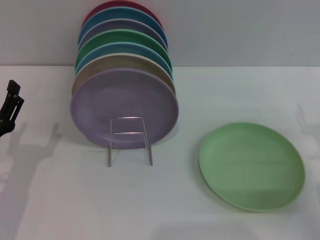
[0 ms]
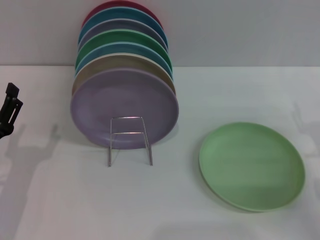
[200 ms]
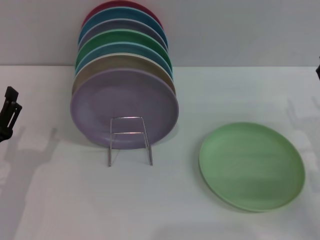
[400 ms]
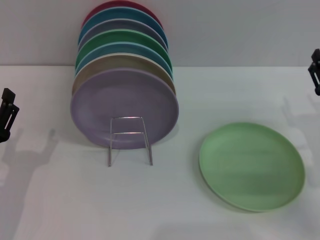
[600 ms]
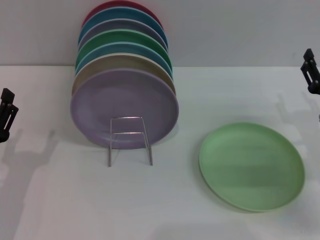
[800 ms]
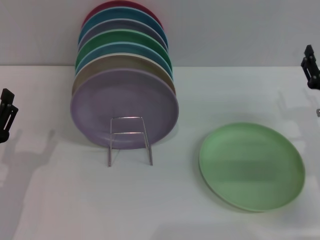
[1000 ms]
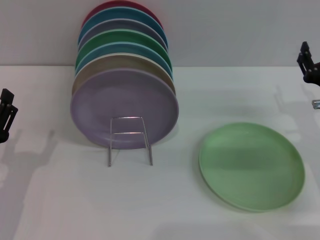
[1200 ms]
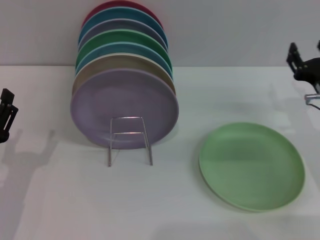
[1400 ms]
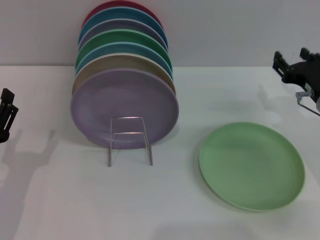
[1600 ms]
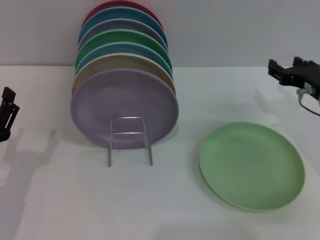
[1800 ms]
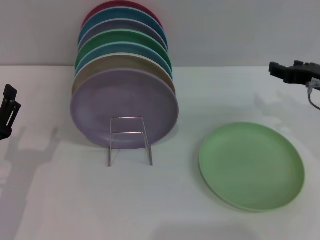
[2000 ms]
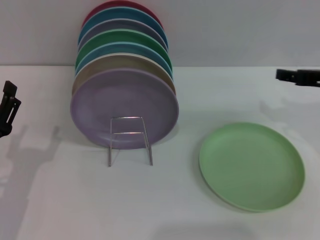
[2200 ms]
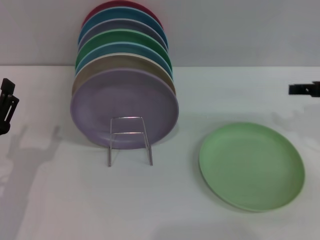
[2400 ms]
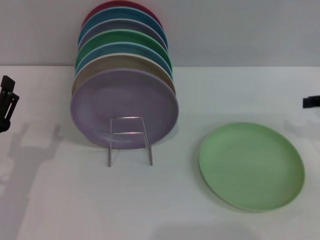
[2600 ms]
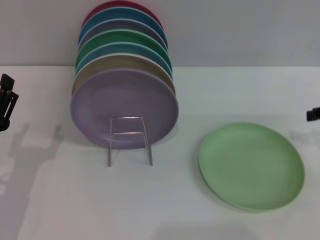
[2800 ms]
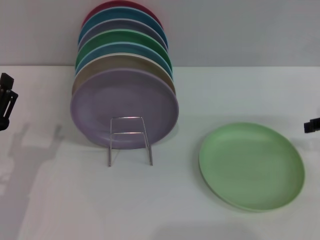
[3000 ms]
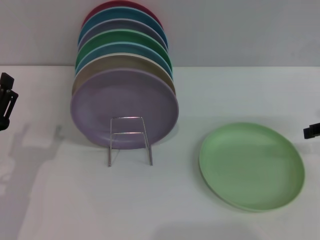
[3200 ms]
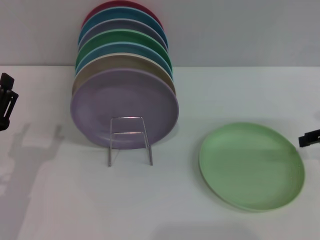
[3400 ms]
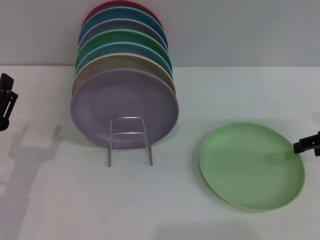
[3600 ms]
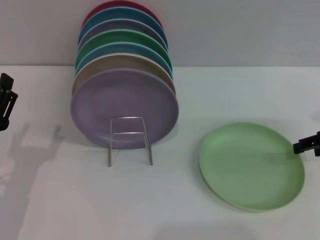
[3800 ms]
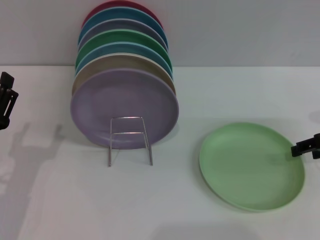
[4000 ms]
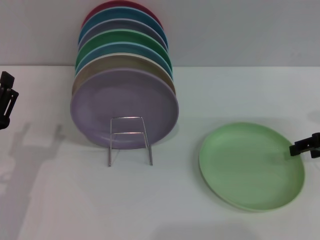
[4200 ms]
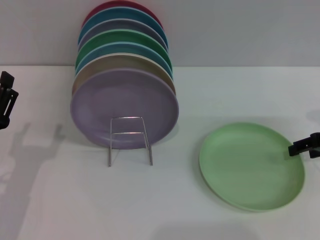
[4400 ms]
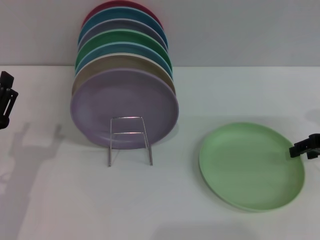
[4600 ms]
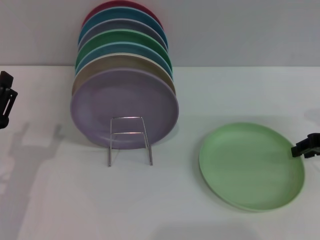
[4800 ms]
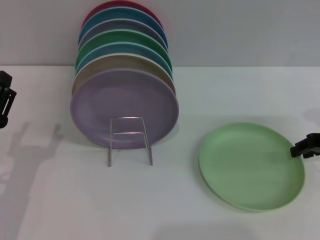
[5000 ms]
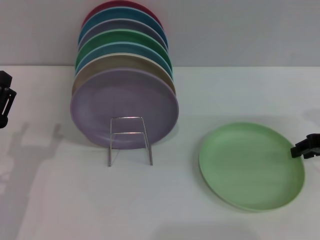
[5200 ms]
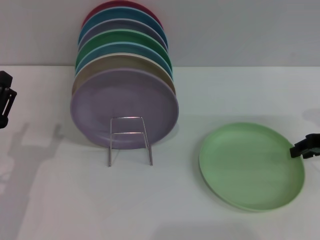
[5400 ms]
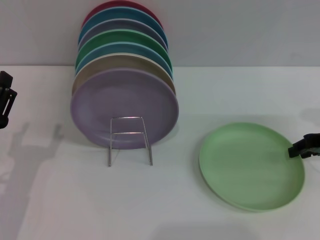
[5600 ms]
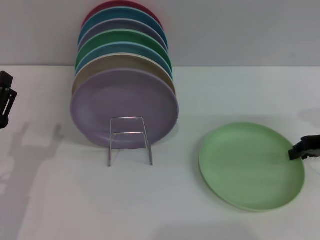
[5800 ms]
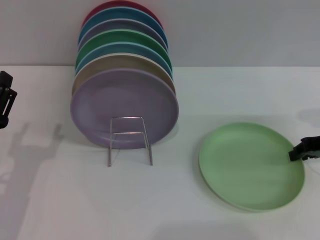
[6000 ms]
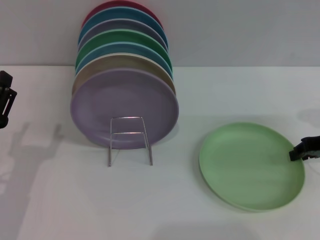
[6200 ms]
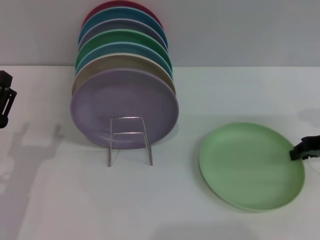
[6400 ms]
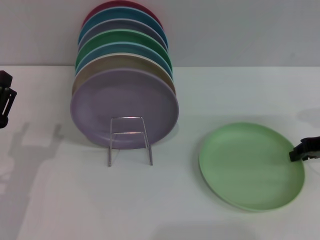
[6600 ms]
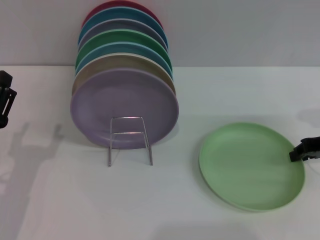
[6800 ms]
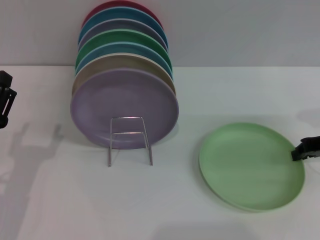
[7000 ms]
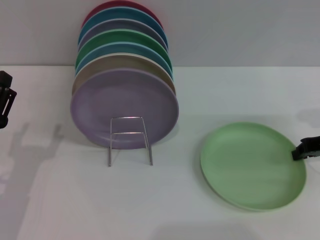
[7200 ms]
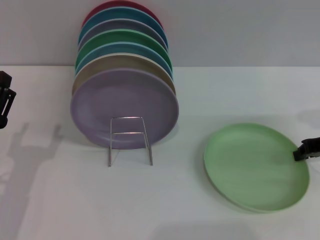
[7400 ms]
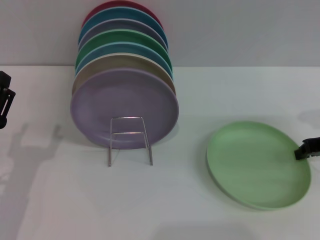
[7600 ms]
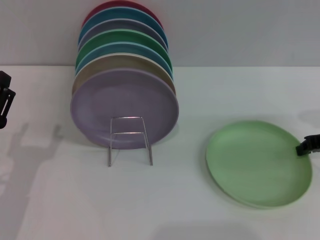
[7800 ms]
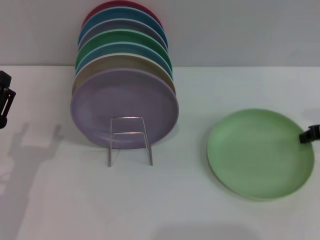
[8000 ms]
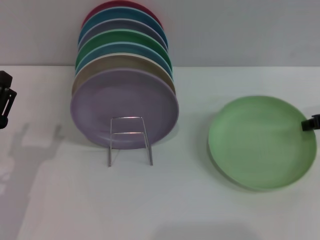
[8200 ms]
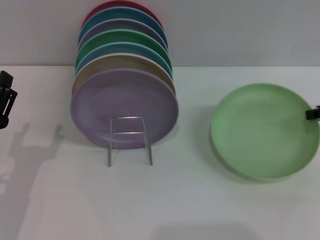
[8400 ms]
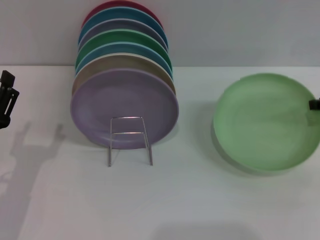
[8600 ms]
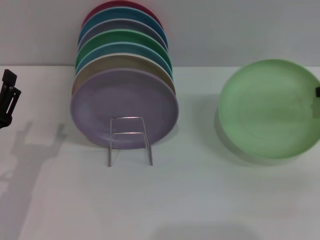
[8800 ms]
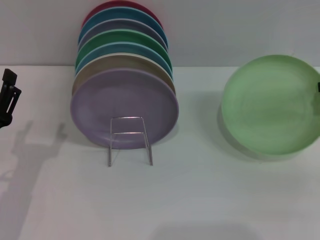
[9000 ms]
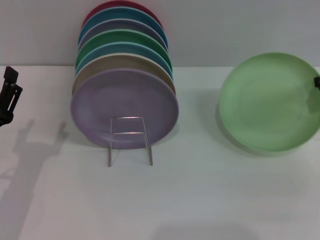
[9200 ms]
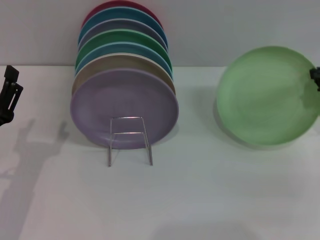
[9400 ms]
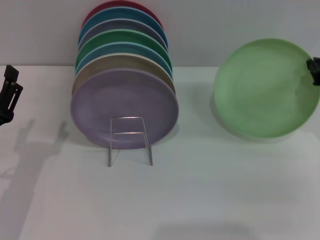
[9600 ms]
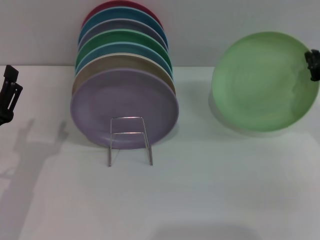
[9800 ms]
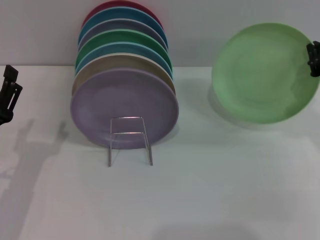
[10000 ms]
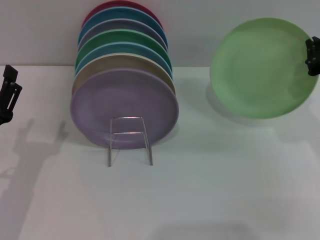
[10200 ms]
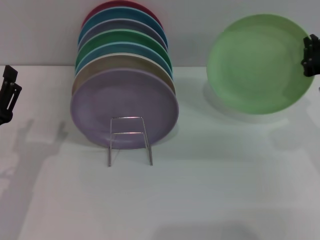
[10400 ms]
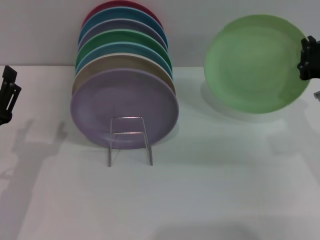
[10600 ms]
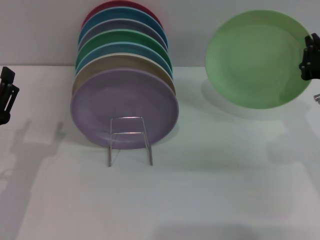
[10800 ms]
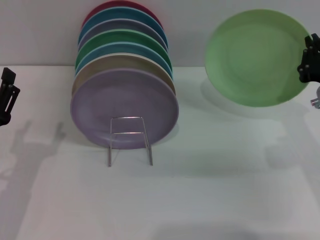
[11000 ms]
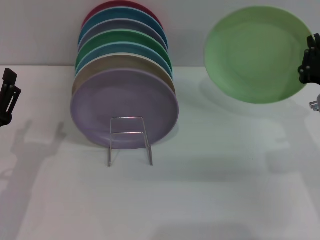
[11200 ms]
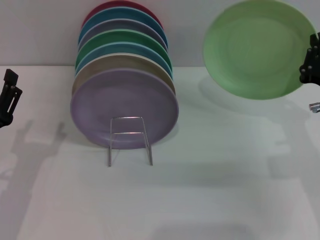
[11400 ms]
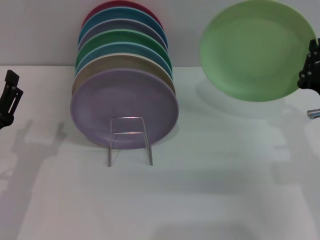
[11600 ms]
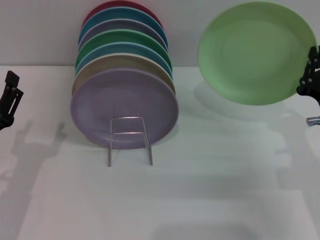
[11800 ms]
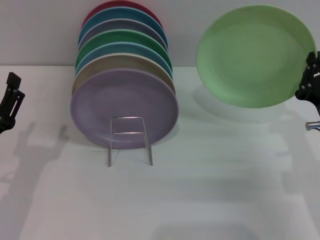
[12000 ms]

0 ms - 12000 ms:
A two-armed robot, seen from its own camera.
Task of the whole recording: Grip the plate with one hand, pass it to the other, then set it on the shelf.
Step, 0 ms - 10800 ms: Pick up the plate with the right gripper.
0 ms - 1600 ms: The right gripper moves forward, some 10 cm.
1600 ms - 3000 ms: The right gripper shifts some 10 cm to the right and upward.
3000 ms - 4400 ms: The grippers make only small movements.
6000 ms - 7600 ms: The two grippers keep their place.
7600 ms - 9000 ms: The right gripper goes approximately 5 cm upward.
9000 ms - 10400 ms: The right gripper travels to the left by some 5 cm.
10400 ms - 12000 ms: The right gripper is displaced downward and backward by some 10 cm.

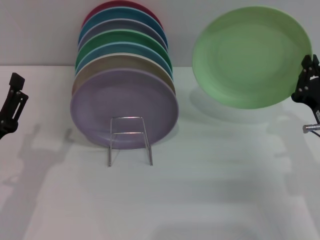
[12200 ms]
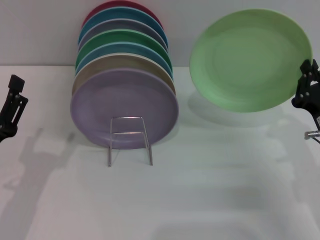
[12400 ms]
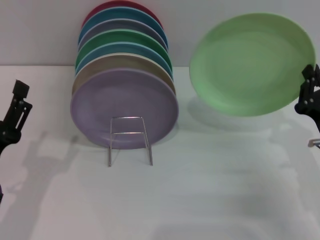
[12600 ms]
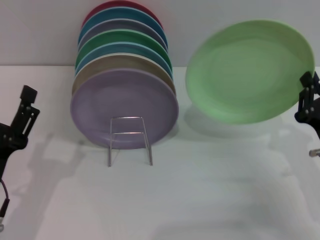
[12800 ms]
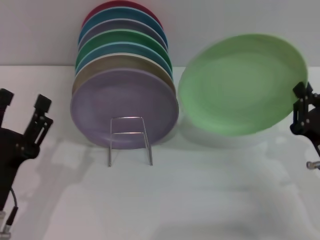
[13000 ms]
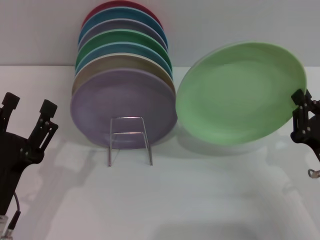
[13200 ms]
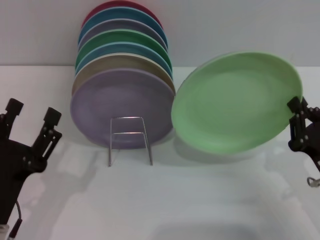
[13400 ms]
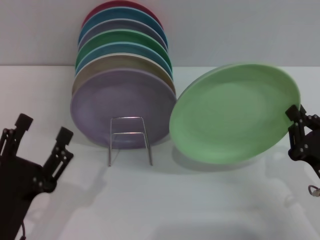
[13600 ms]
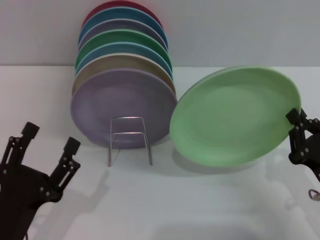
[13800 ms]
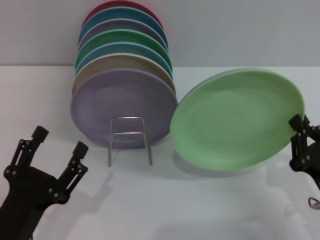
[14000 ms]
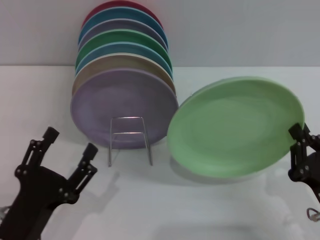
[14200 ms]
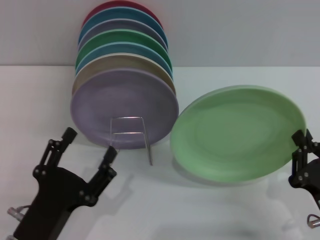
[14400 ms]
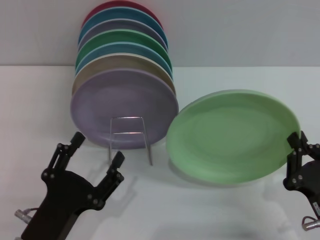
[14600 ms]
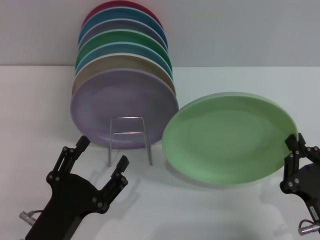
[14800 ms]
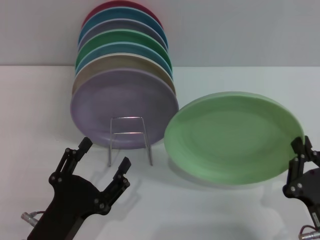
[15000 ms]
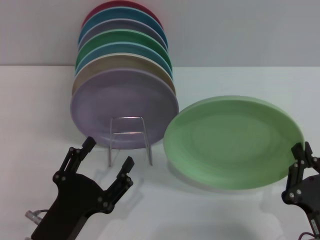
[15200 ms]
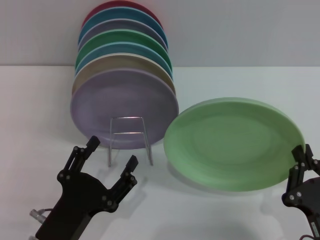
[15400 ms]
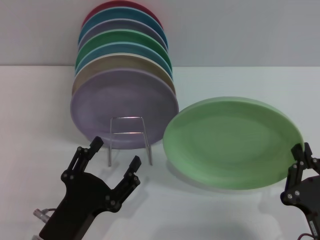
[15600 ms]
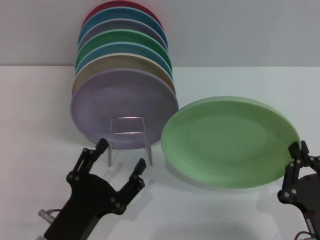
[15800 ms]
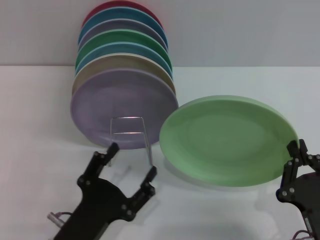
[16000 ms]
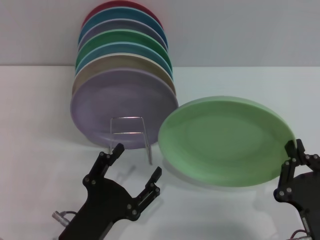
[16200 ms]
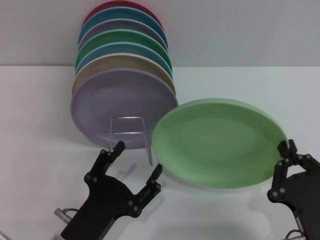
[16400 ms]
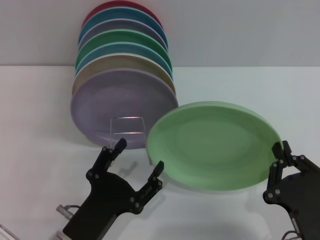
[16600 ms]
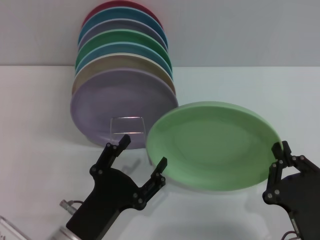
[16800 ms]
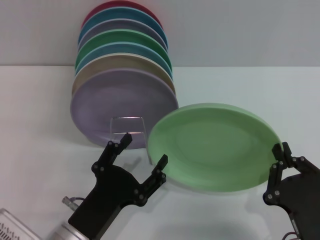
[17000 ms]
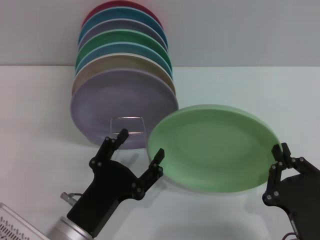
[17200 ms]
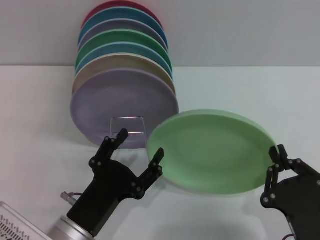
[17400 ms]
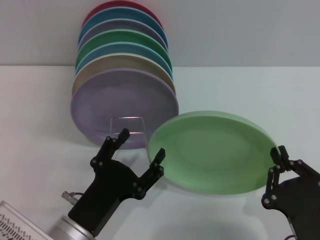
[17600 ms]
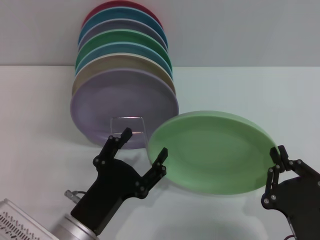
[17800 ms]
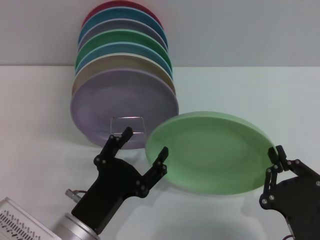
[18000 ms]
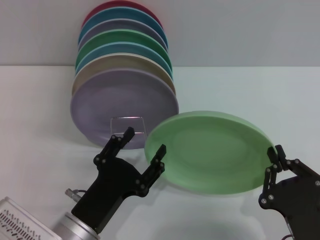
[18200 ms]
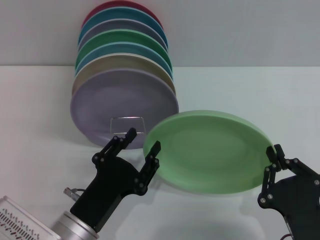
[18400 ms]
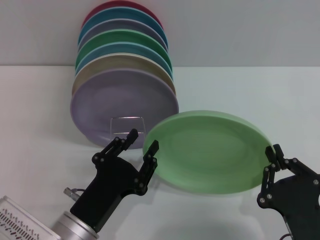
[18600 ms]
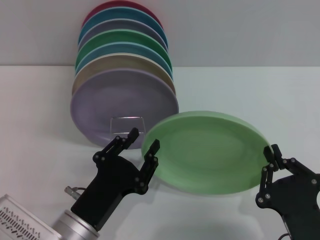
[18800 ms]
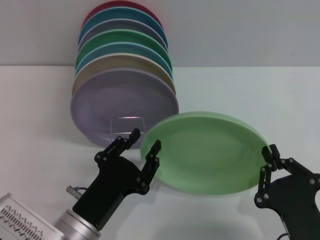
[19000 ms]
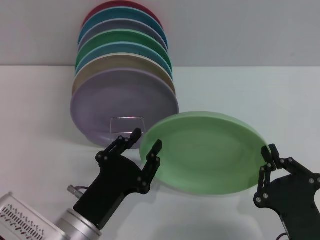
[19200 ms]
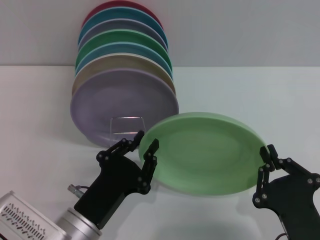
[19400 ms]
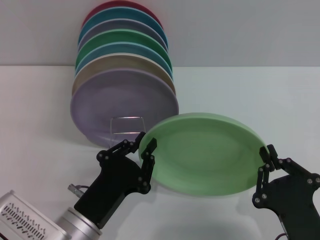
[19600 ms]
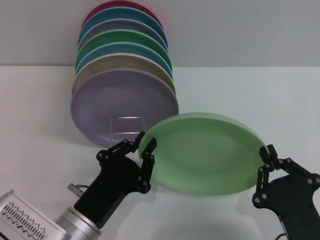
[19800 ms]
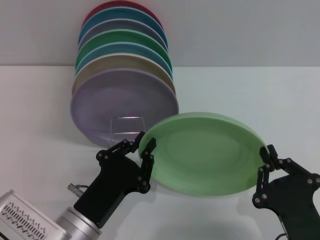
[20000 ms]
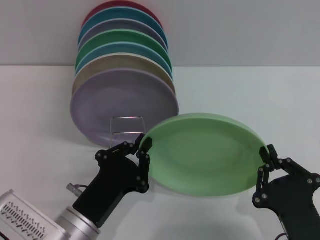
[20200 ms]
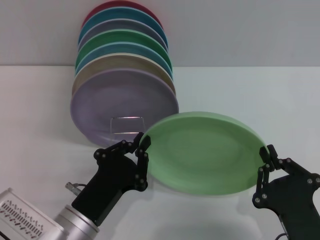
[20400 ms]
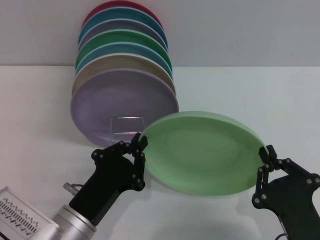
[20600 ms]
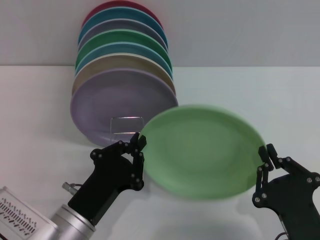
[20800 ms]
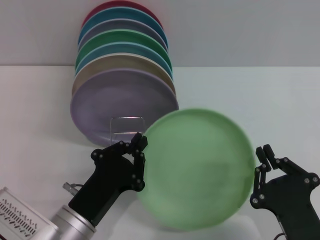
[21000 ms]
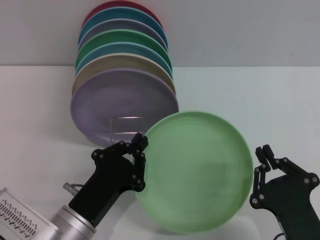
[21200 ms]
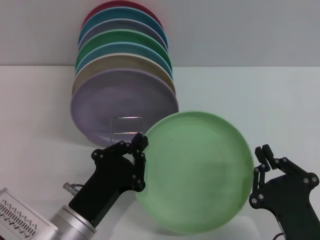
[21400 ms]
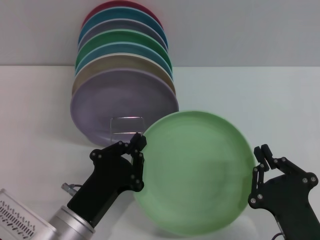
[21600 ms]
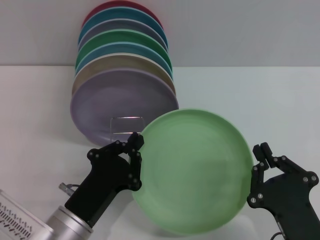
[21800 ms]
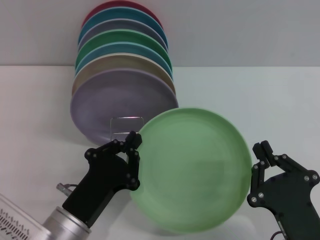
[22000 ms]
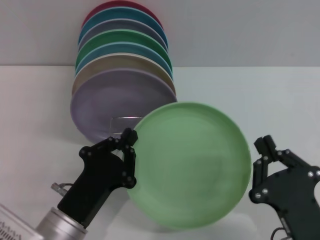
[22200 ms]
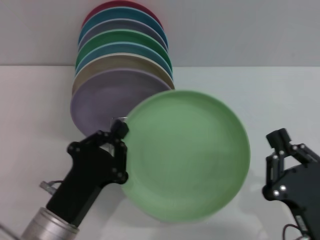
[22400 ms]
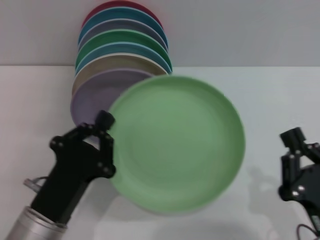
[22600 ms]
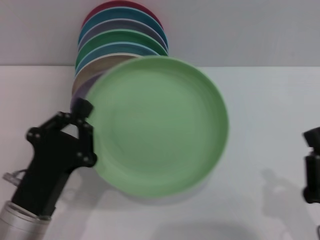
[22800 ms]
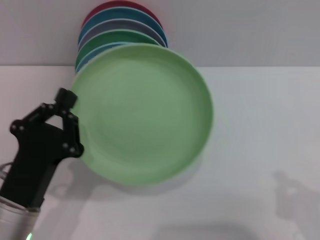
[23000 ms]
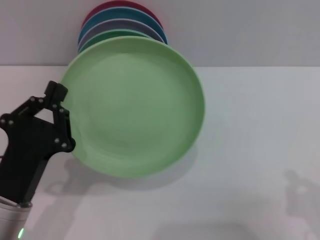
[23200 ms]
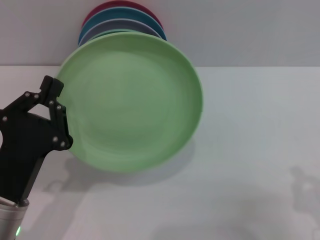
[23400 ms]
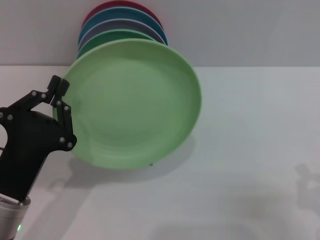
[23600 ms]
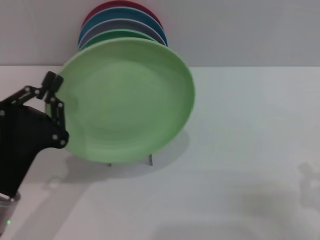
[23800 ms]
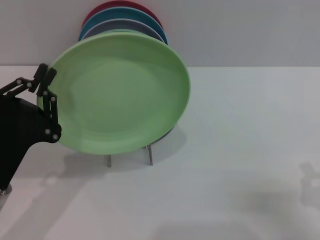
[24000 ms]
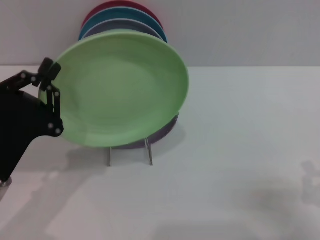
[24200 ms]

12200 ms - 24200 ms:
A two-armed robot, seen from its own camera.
Task of the whole recording: Grip the plate with one hand, pass it to the other, then set it on the shelf.
Step, 12200 ms - 21000 ms: Pass the plate from the right gripper to the left gripper.
12200 ms - 13800 ms: Both grippers travel together backward, approximately 5 cm.
13800 ms - 15200 ms: The right gripper is displaced backward and to the left by some 10 cm.
15200 ms - 18200 ms: The grippers move only a little.
18200 ms - 19800 ms: The left gripper closes up.
19800 ms - 21200 ms: Neither gripper changes place.
22600 ms - 24200 ms: The right gripper travels to the right by about 10 cm; the left gripper shifts roughly 5 cm to the left.
